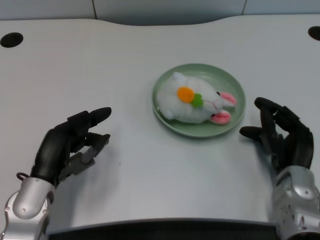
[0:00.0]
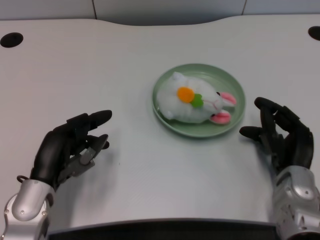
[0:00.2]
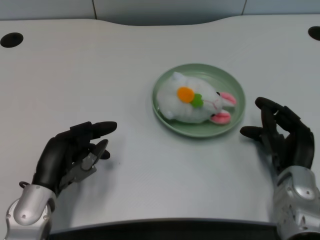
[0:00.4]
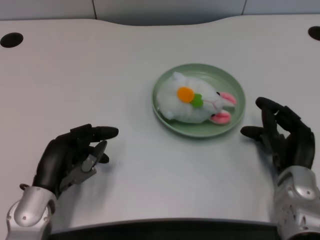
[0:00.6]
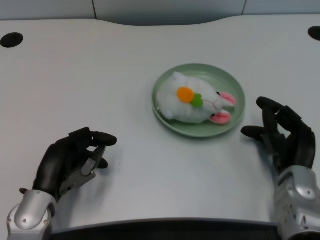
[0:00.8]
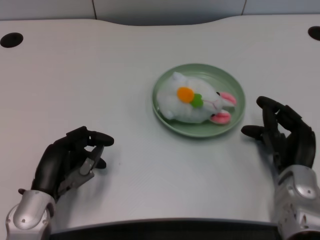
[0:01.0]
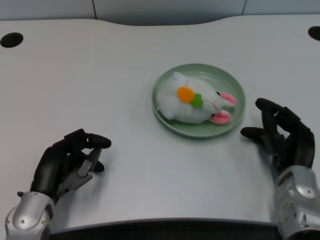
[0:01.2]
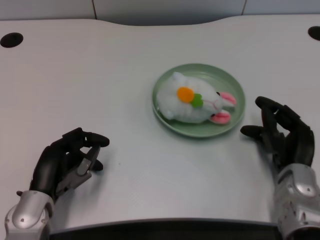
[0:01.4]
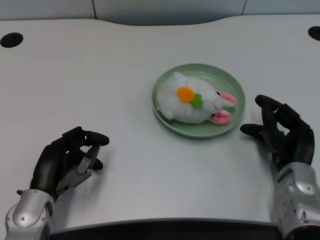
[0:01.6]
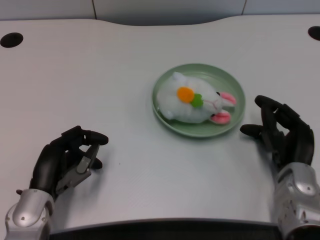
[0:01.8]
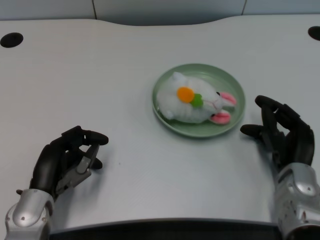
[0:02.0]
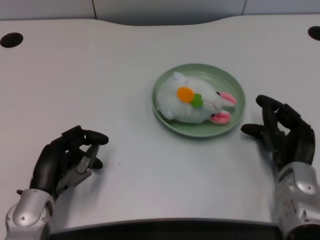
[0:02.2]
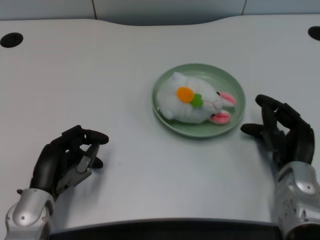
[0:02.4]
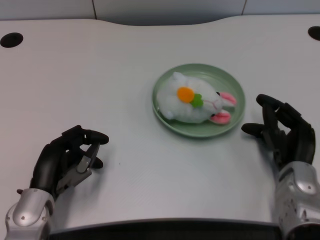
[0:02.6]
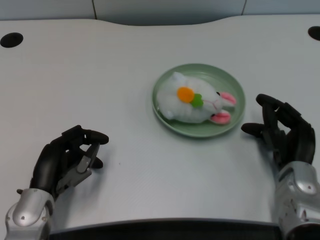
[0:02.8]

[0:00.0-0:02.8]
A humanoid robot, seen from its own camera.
Task of the whole recording: pick up the rabbit doll from the table and place it on the plate.
0:00.0 to 0:01.4: There are only small adjustments of the hands.
0:01.4 to 0:02.8: Both hands stay about where they are.

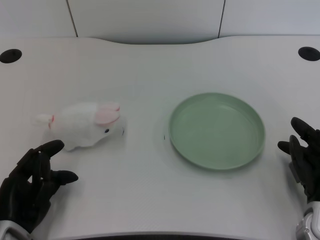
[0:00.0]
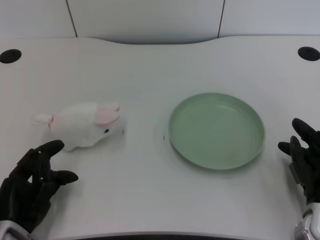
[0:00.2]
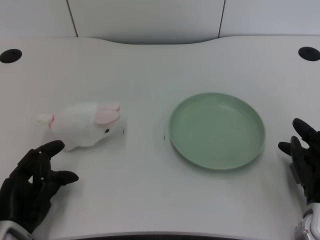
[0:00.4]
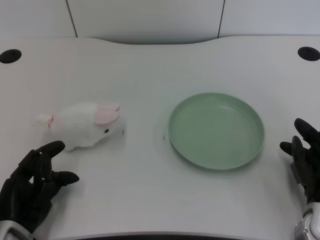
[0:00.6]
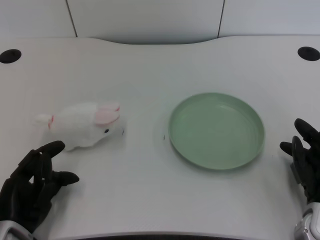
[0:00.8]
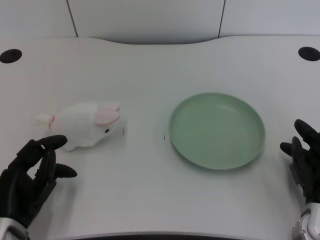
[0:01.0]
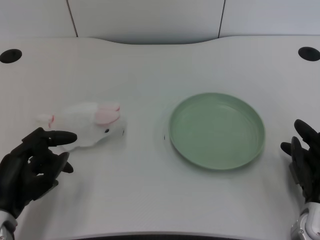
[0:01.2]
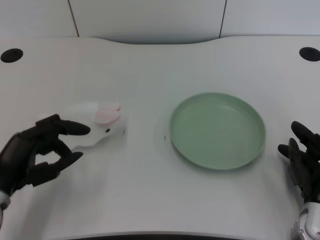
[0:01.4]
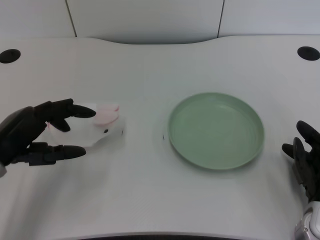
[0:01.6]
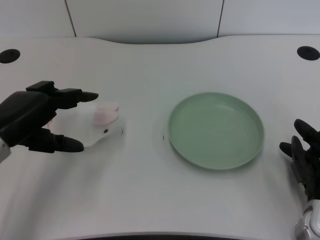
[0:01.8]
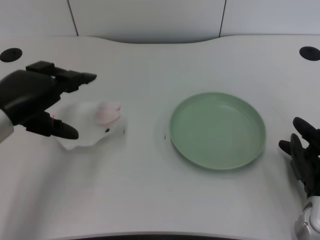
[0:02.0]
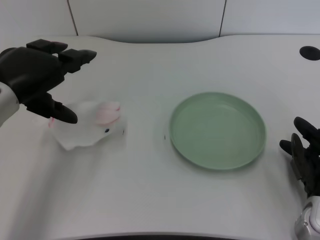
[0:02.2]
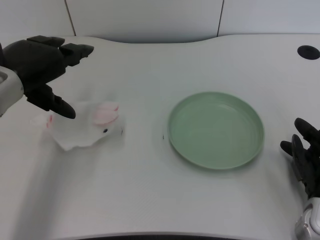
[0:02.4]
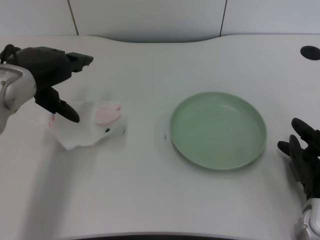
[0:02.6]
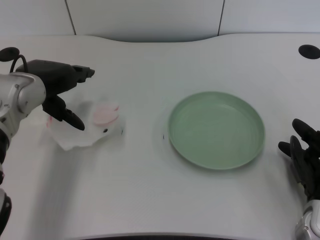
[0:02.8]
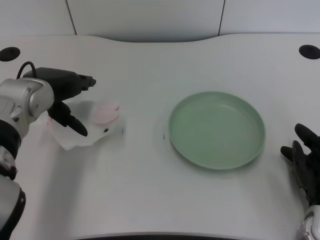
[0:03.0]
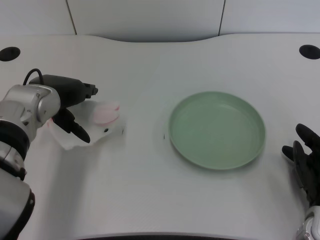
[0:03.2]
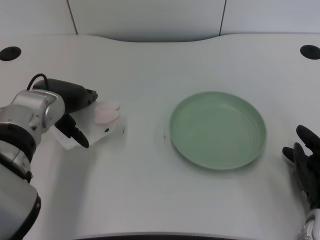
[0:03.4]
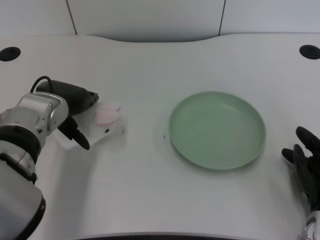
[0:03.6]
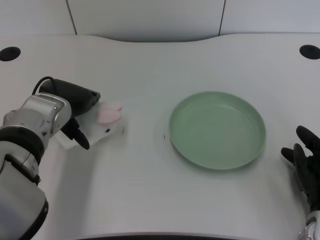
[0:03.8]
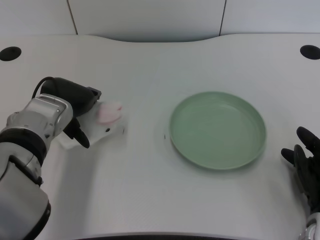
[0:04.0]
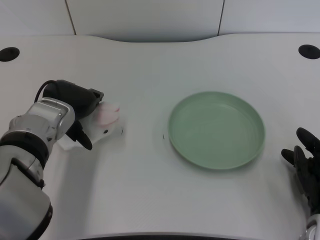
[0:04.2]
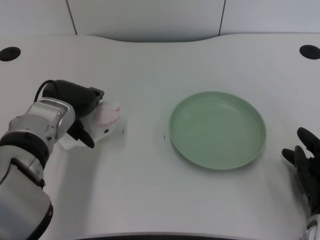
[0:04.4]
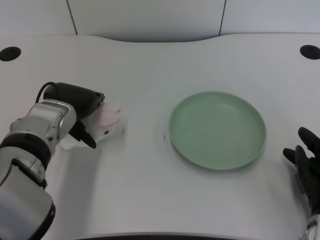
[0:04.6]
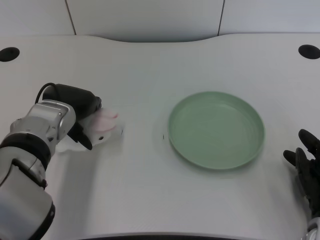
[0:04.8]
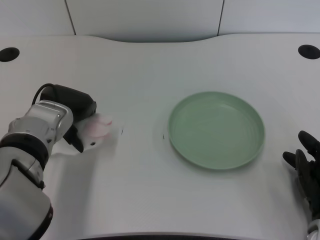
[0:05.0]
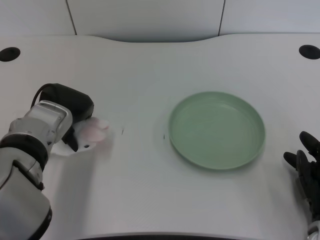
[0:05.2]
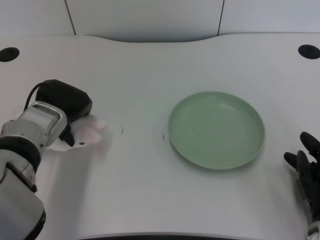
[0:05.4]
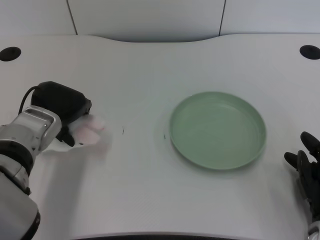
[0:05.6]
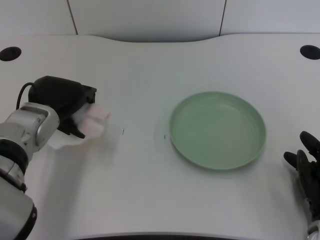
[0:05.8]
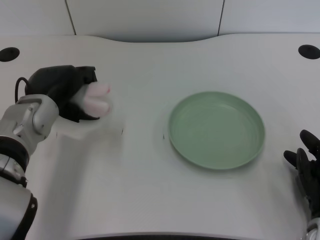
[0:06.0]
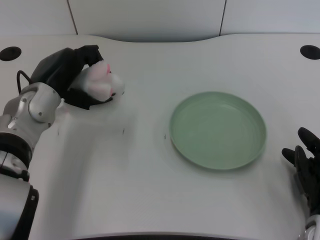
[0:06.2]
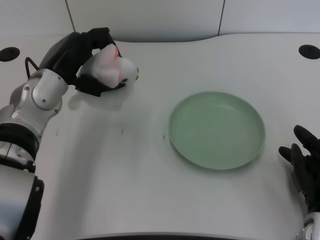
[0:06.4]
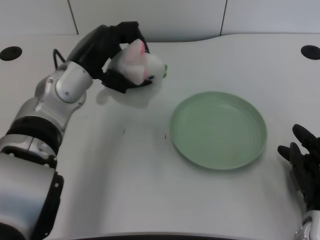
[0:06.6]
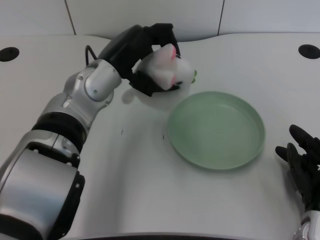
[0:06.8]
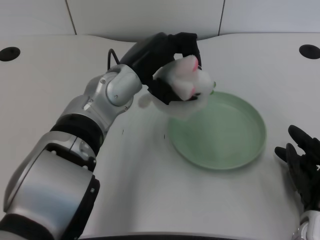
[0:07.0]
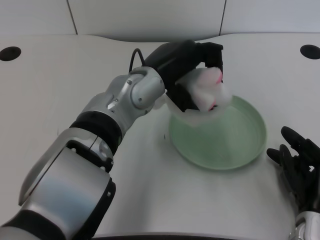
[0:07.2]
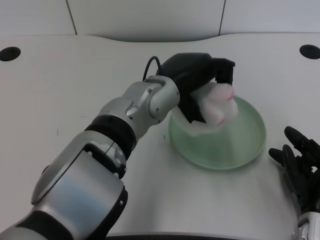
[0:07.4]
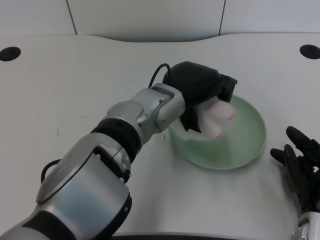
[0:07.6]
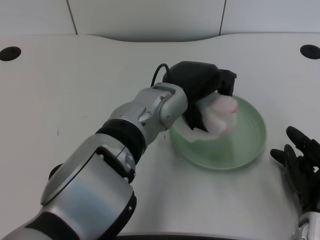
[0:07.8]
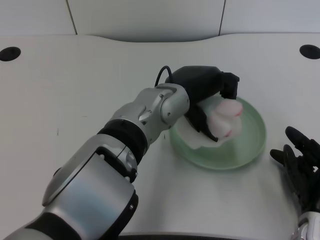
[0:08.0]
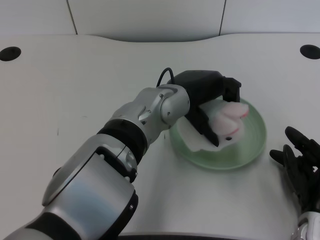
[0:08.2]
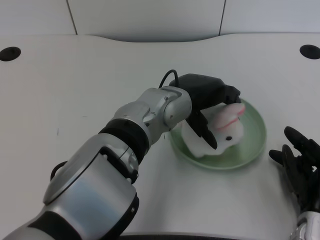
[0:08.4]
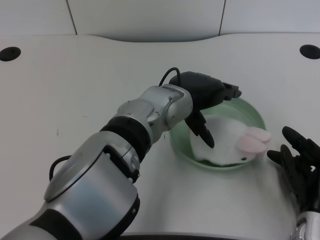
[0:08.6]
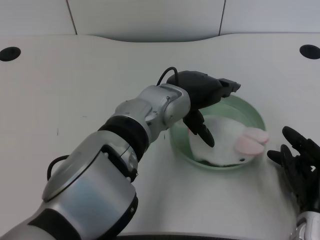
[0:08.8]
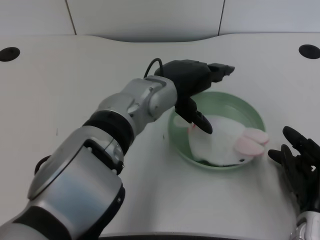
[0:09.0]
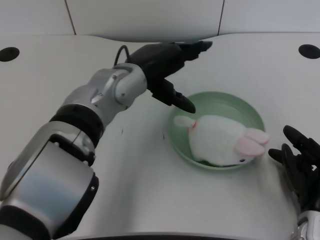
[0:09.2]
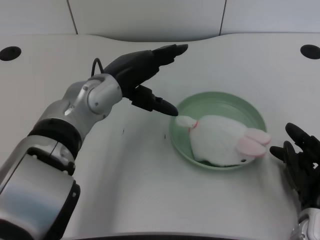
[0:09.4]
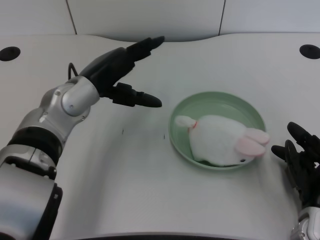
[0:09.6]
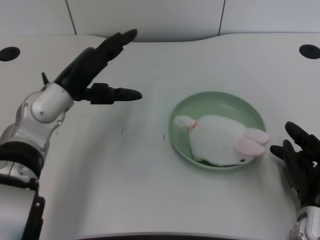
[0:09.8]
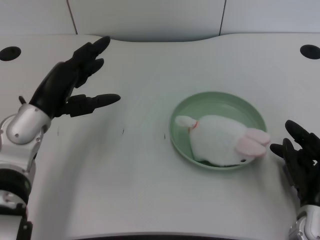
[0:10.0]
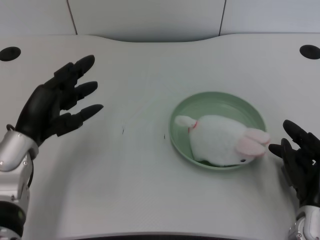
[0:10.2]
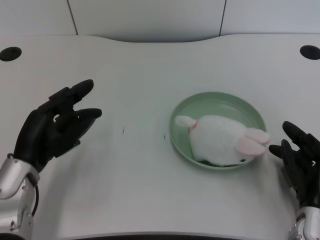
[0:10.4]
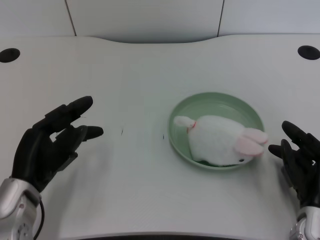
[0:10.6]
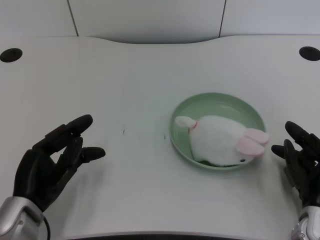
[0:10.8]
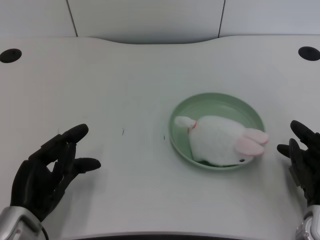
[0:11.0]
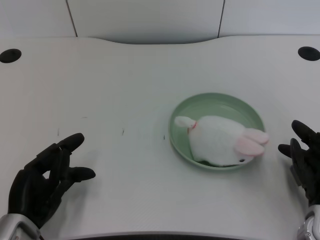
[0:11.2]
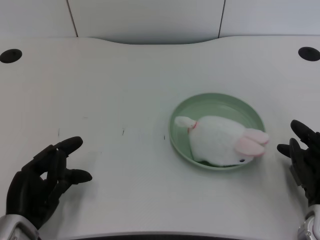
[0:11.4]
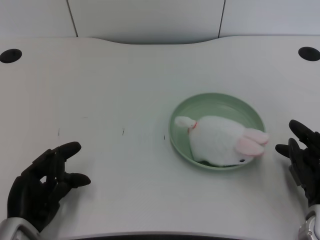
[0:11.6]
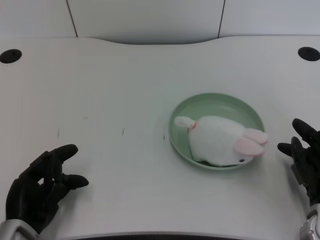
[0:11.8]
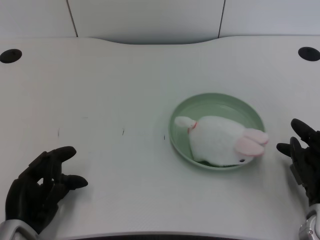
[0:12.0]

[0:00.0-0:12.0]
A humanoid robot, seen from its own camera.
Task of the whole recording: pick up the rabbit doll from the table and place it on the plate.
Step, 0:01.0 to 0:05.6: Grasp the rabbit doll with the left gripper.
Step, 0:06.0 to 0:08.8: Place the rabbit doll into the plate with the left gripper.
0:01.6 to 0:03.0: The left hand moves forward and to the right, roughly 10 cm.
0:03.0 to 0:04.4: The hands move only a little.
0:06.0 to 0:07.6: The left hand moves to the right, some 20 cm.
0:07.6 to 0:09.0: The hands stay close to where they were, moving slightly.
0:09.0 to 0:10.4: The left hand goes roughly 20 cm to the left and downward.
0:10.4 to 0:12.0: The left hand moves backward, about 5 cm.

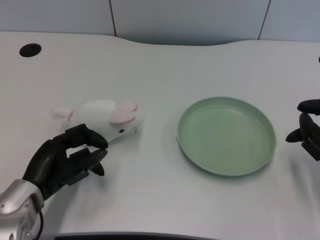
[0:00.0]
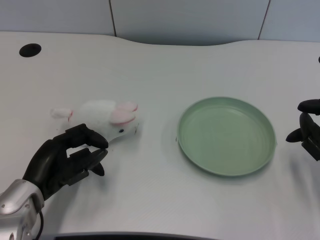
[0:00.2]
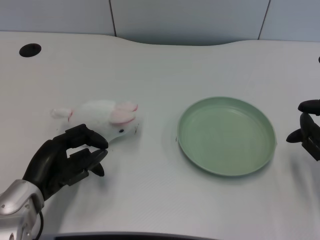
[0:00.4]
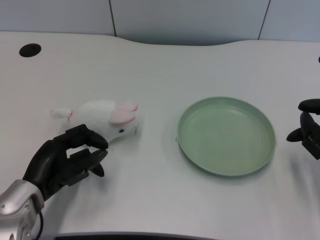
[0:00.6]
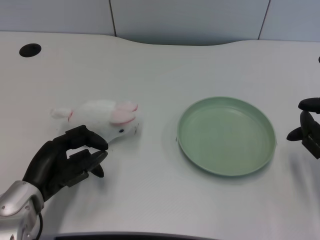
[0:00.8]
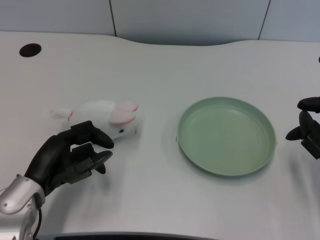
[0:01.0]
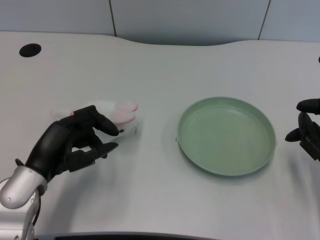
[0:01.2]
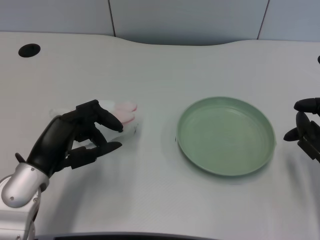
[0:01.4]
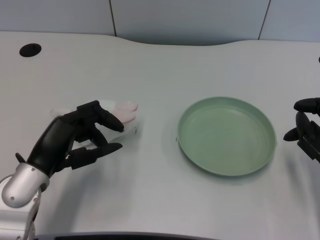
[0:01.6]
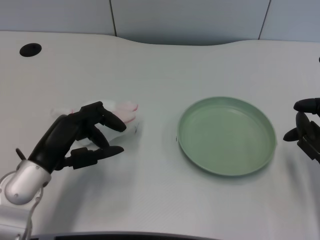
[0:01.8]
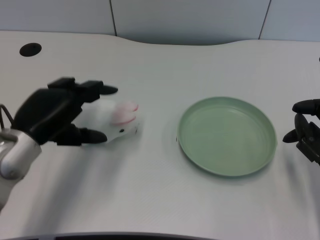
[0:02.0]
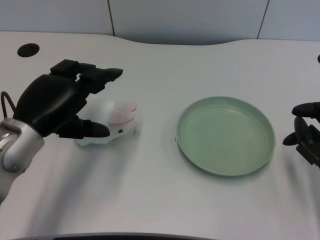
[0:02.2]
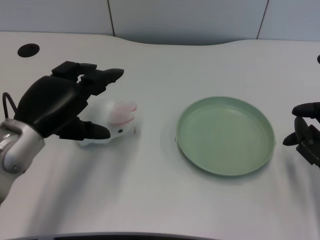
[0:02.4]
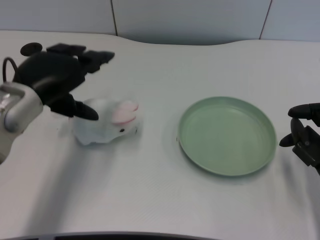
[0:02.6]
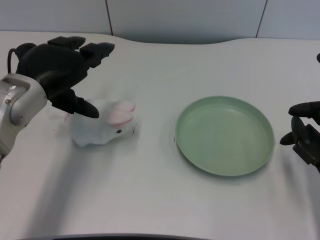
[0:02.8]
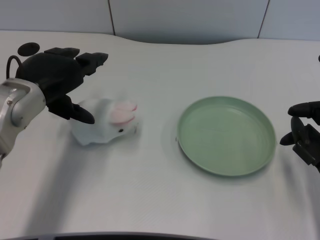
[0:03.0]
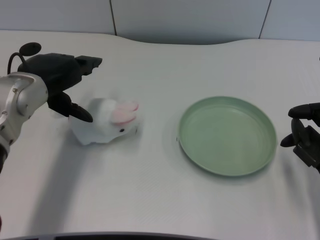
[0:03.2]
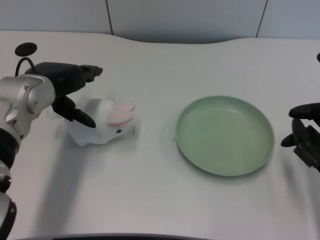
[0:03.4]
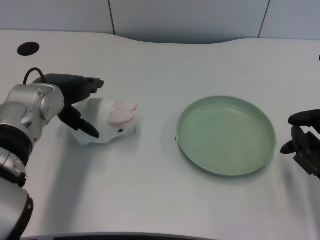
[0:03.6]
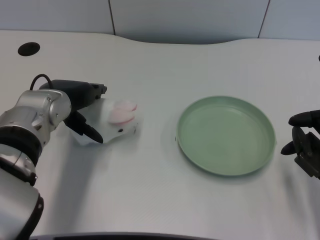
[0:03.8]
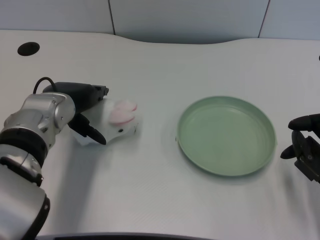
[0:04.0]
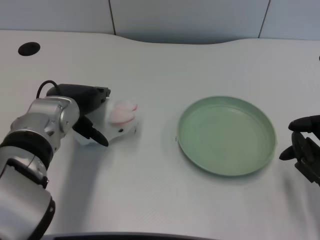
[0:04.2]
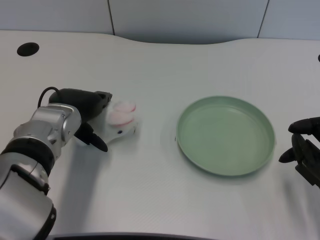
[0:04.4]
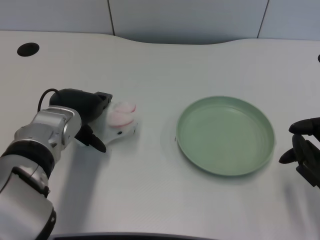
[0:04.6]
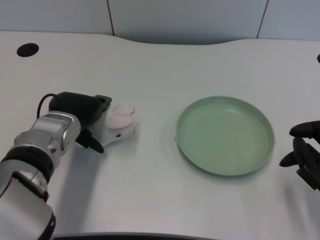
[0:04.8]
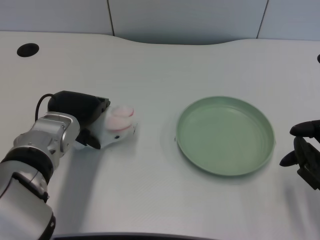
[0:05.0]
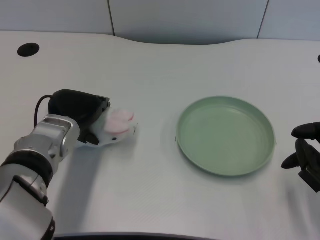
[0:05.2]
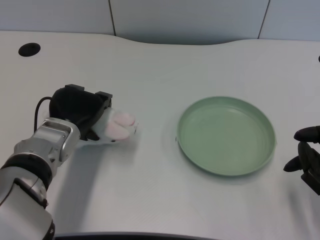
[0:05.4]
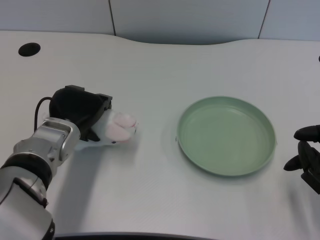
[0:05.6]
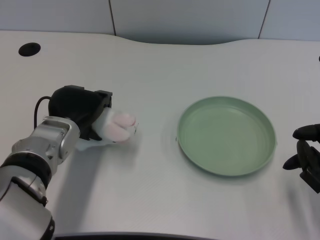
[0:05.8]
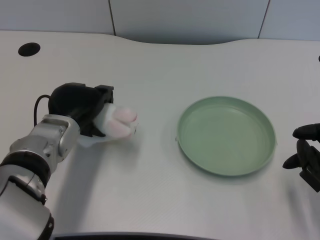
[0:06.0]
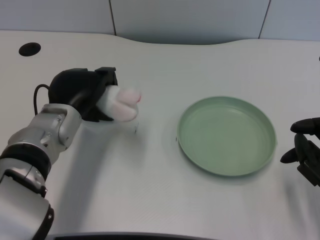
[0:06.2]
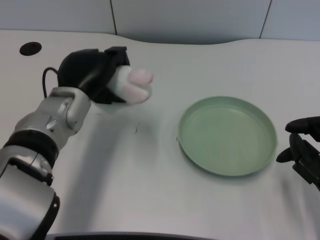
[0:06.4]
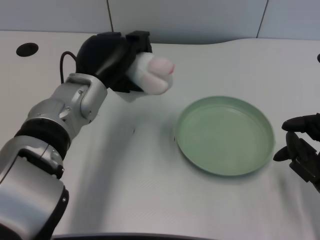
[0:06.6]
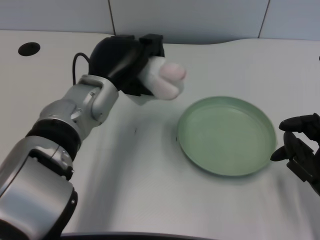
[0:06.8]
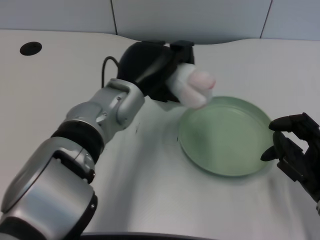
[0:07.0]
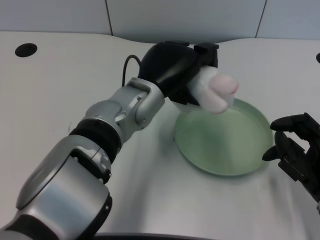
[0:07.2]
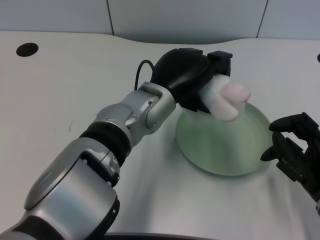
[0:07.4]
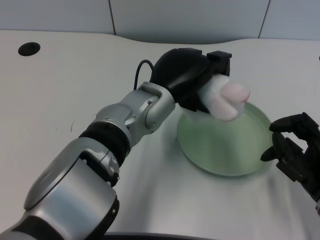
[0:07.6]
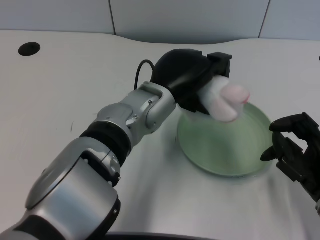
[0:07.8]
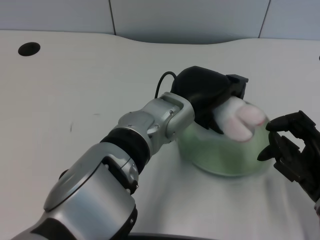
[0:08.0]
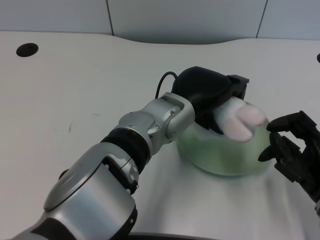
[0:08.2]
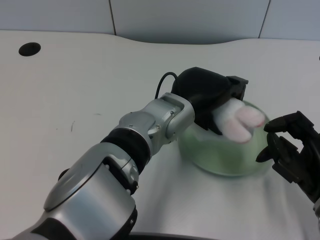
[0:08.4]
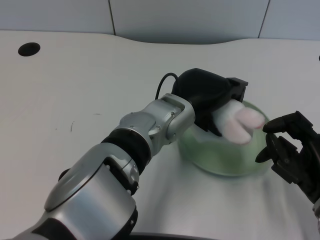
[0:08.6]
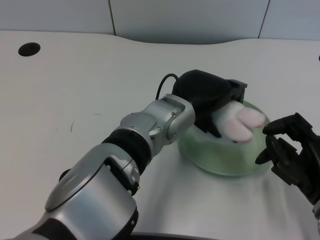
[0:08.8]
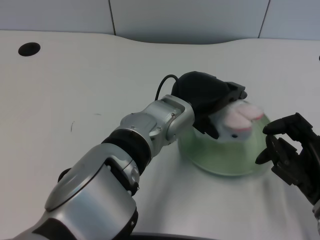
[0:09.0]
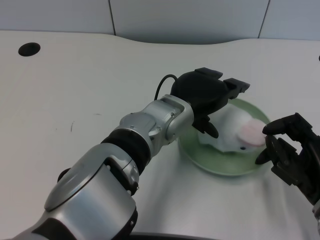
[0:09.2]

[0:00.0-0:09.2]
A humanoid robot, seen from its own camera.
Task of the whole recording: pick up the rabbit doll from the table and place it on the plate.
Step, 0:01.2 to 0:05.8: Grasp the rabbit doll with the left gripper.
0:01.6 to 0:03.0: The left hand goes about 10 cm upward and forward.
0:03.0 to 0:04.6: The left hand goes some 5 cm downward.
0:06.2 to 0:07.6: The left hand goes approximately 15 cm to the right.
